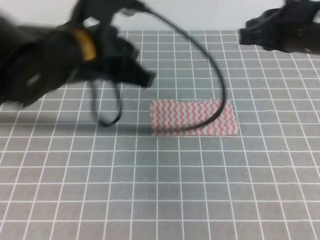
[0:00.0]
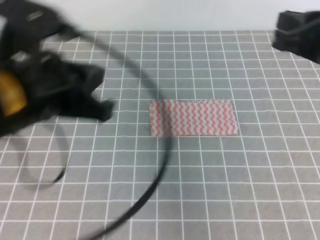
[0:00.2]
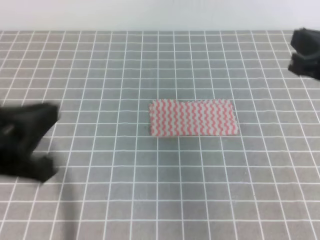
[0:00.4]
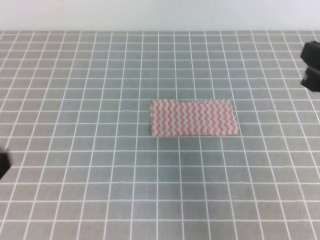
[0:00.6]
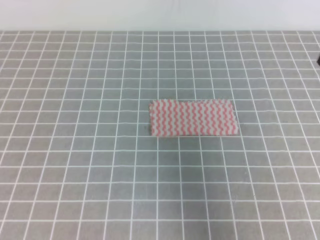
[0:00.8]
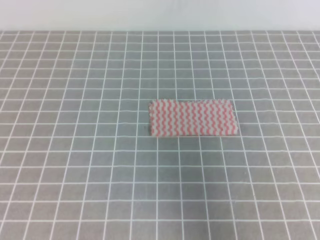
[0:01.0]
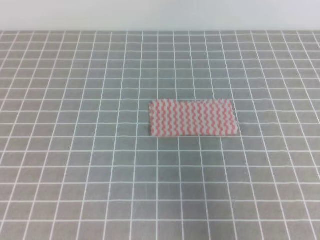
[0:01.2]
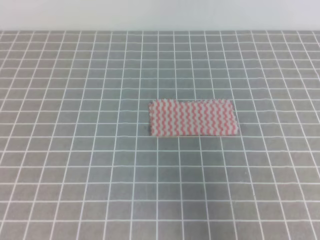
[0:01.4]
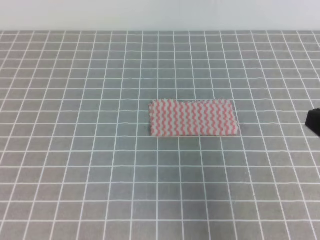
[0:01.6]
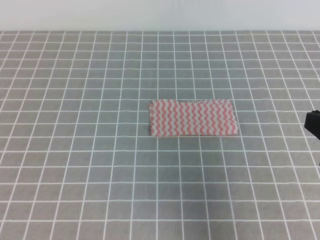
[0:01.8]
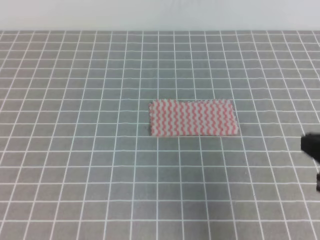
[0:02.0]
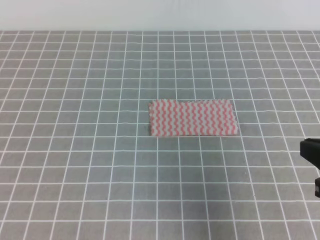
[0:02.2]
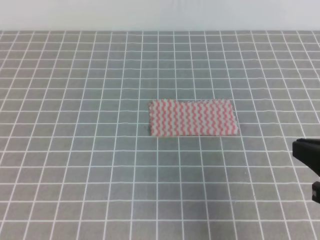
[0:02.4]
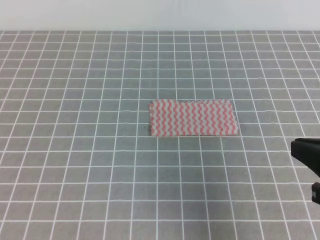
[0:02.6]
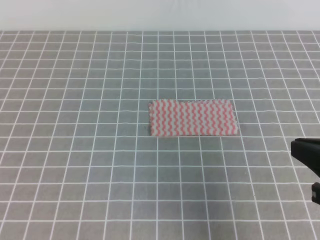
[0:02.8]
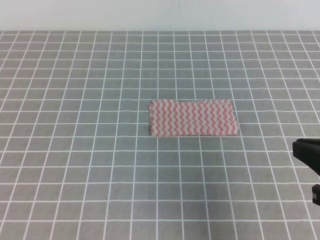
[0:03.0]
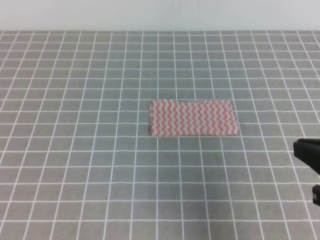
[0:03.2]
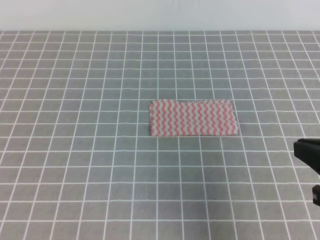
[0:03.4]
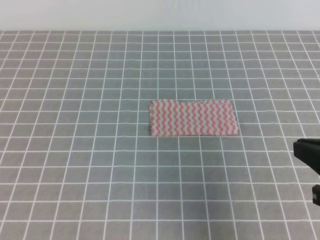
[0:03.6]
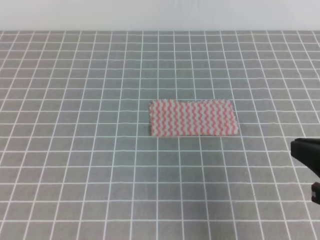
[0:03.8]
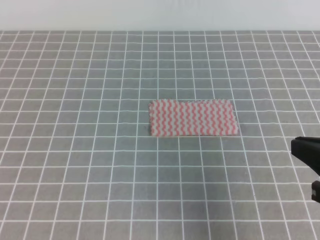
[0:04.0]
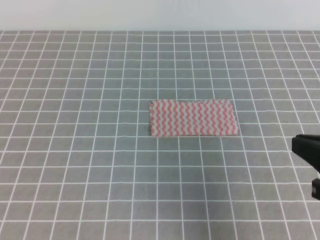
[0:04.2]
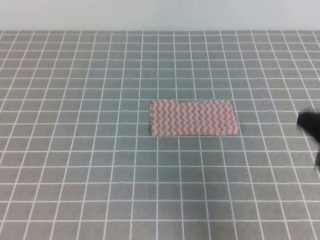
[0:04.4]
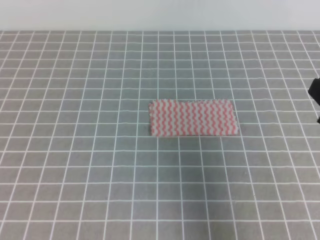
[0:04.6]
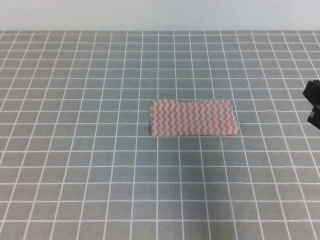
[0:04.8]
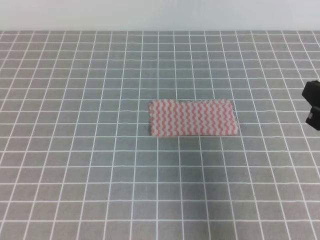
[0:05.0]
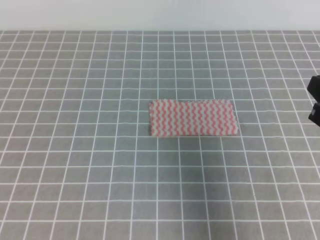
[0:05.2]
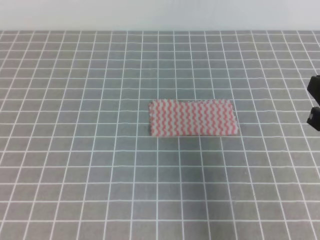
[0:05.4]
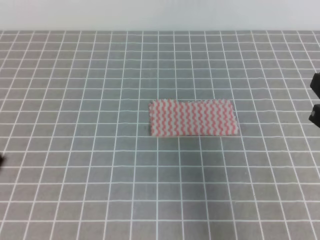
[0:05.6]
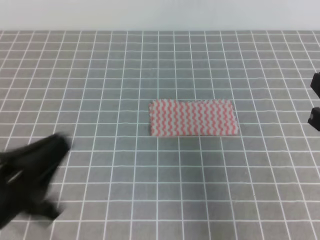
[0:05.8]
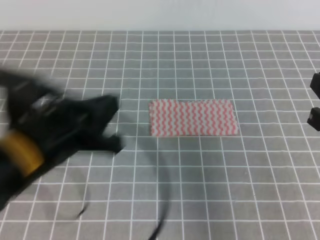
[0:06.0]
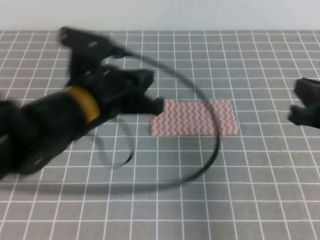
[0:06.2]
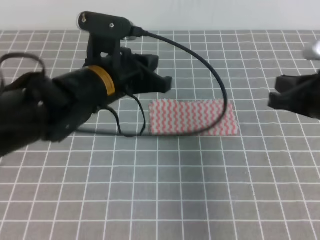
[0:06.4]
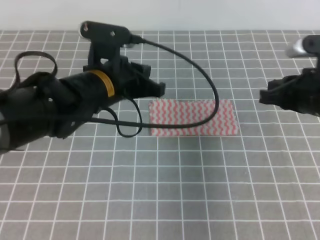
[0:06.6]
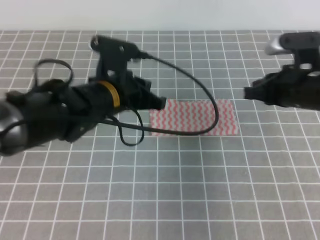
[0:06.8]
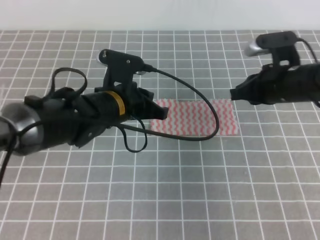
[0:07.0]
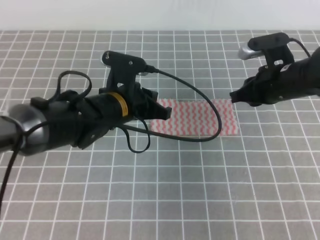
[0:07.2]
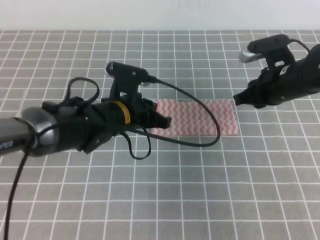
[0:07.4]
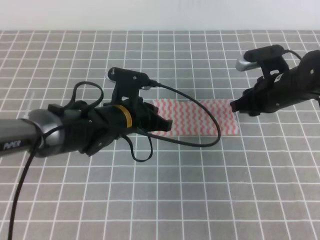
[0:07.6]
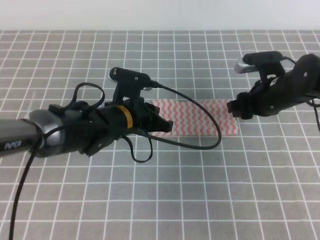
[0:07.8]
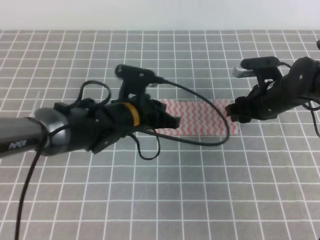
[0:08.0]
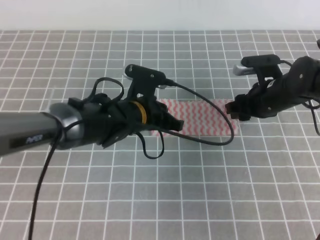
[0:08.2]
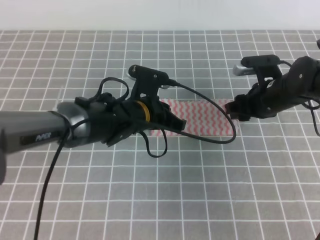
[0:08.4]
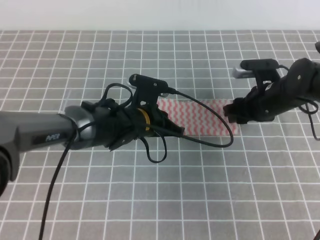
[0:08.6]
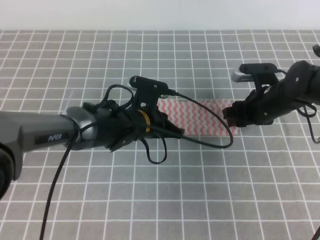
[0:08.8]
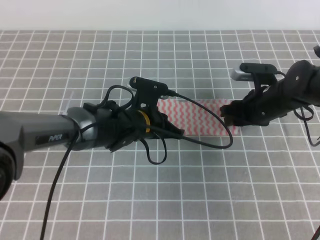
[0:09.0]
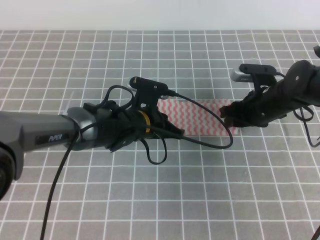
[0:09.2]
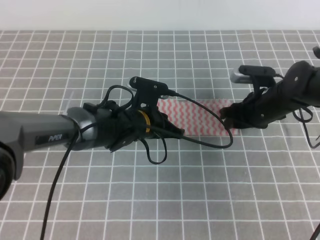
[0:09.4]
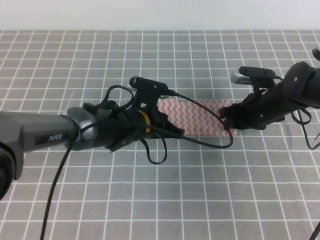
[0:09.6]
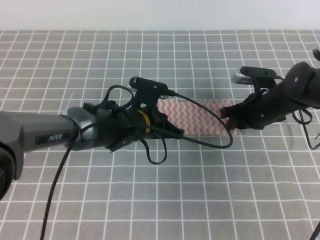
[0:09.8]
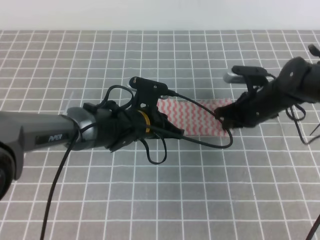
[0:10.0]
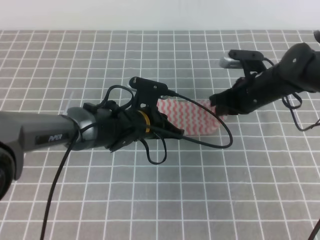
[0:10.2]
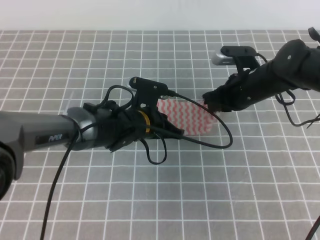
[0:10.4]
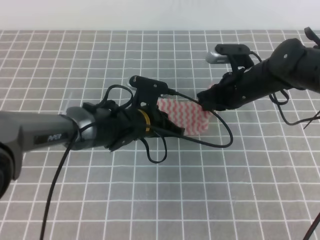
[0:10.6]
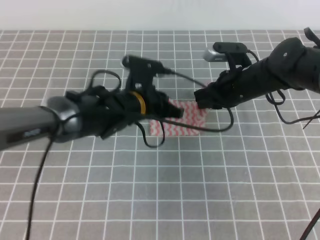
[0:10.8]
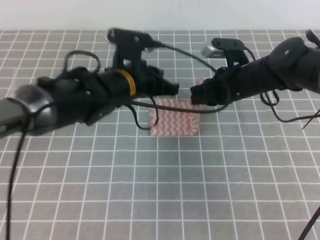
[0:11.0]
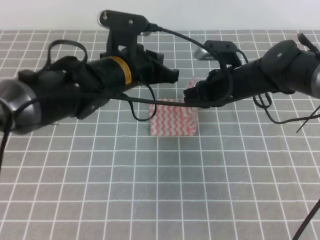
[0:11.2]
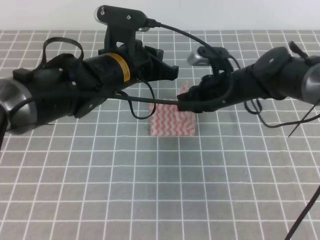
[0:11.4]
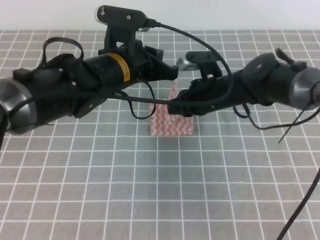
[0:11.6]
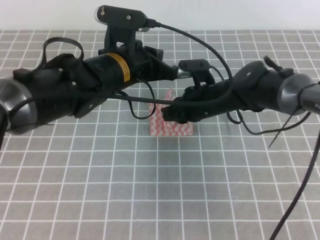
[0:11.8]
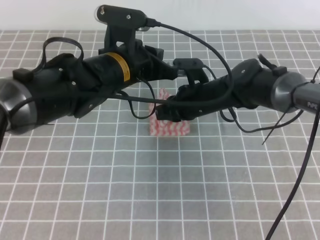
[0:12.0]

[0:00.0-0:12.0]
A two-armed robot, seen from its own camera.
0:00.0 to 0:01.6: The left gripper travels backward and to the left by some 25 cm. The right gripper travels backward by about 15 cm.
0:01.6 to 0:04.4: There are only small adjustments of the grippers.
0:04.4 to 0:06.0: The left gripper shifts about 20 cm forward and to the right.
0:06.0 to 0:07.6: The right gripper heads forward and downward, covering approximately 20 cm, and opens its fingers. Meanwhile the left gripper is displaced forward, downward and to the right by roughly 25 cm.
0:07.6 to 0:09.0: The left gripper shifts by about 5 cm.
0:09.0 to 0:10.4: The right gripper closes its fingers.
0:10.4 to 0:12.0: The left gripper is displaced upward by some 15 cm. Meanwhile the right gripper moves to the left, roughly 10 cm.

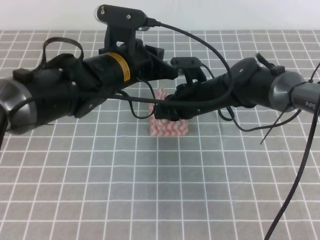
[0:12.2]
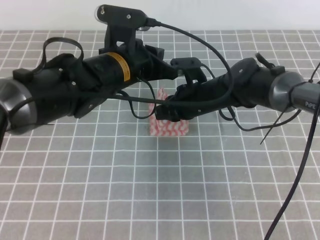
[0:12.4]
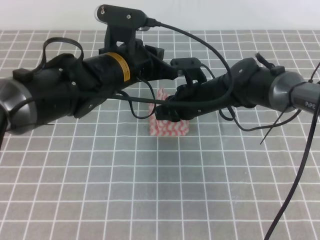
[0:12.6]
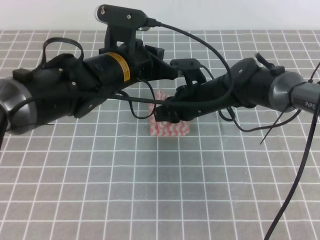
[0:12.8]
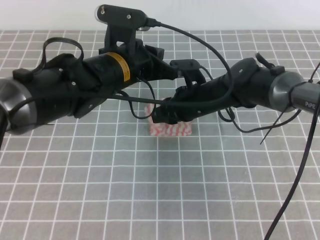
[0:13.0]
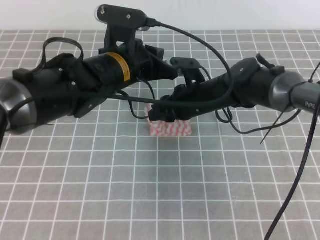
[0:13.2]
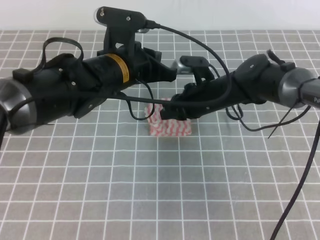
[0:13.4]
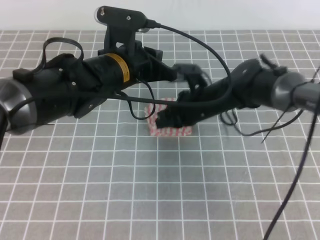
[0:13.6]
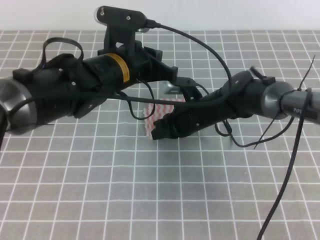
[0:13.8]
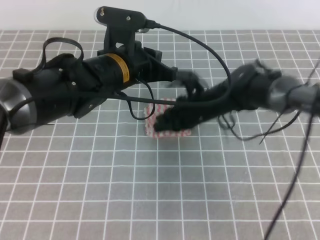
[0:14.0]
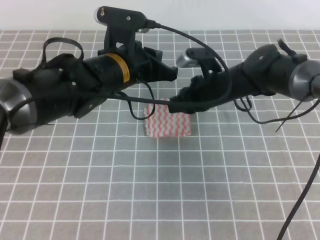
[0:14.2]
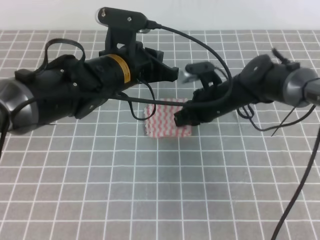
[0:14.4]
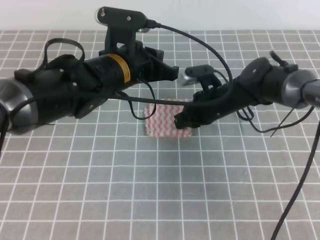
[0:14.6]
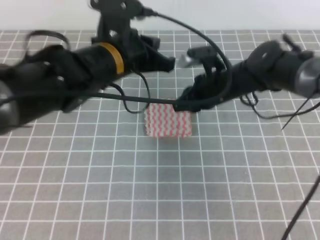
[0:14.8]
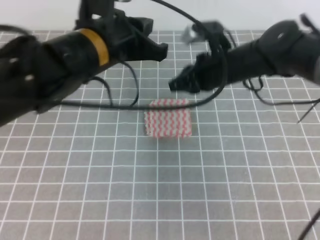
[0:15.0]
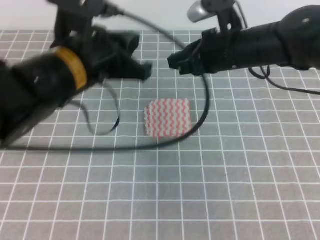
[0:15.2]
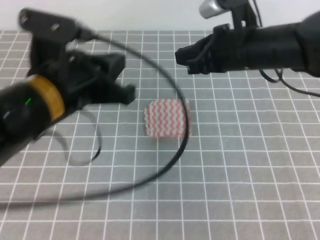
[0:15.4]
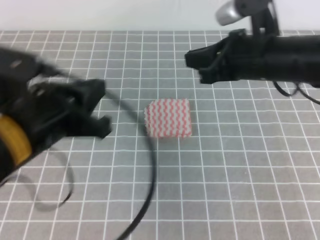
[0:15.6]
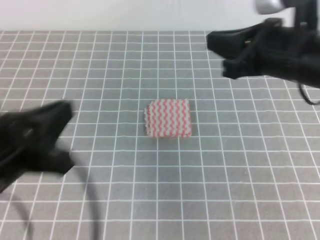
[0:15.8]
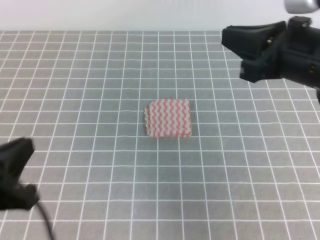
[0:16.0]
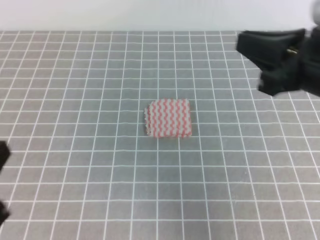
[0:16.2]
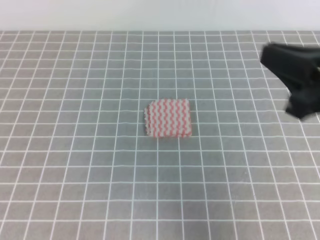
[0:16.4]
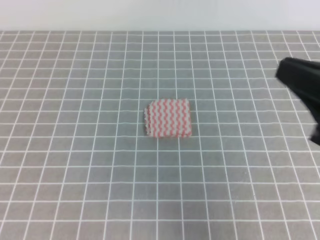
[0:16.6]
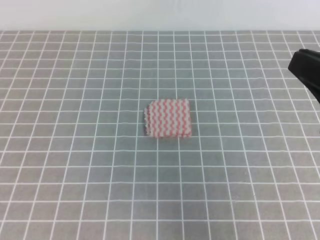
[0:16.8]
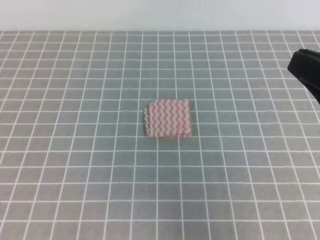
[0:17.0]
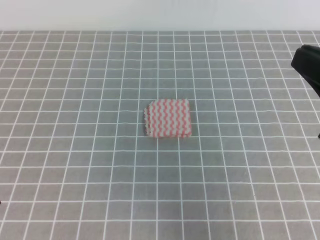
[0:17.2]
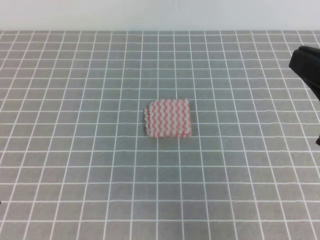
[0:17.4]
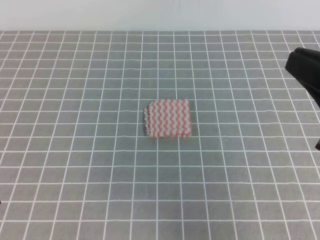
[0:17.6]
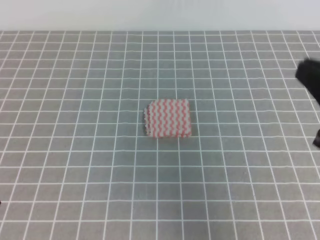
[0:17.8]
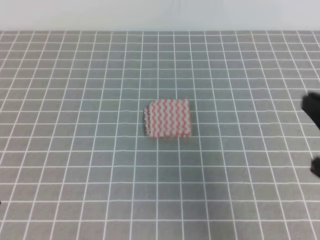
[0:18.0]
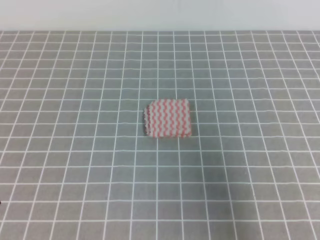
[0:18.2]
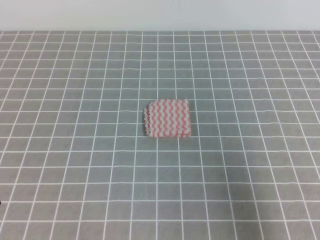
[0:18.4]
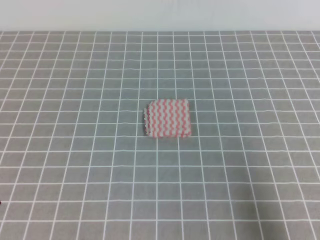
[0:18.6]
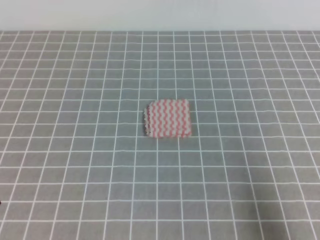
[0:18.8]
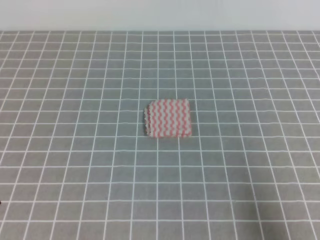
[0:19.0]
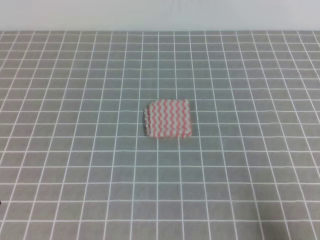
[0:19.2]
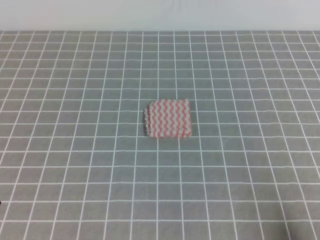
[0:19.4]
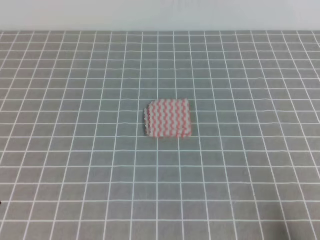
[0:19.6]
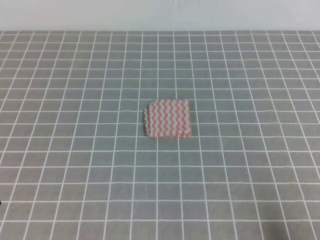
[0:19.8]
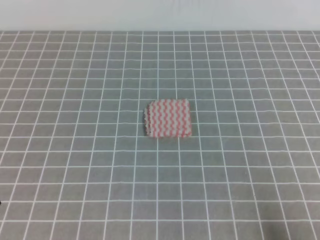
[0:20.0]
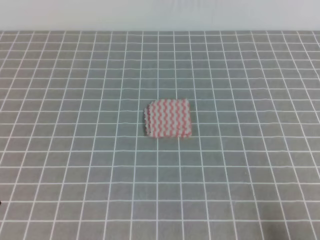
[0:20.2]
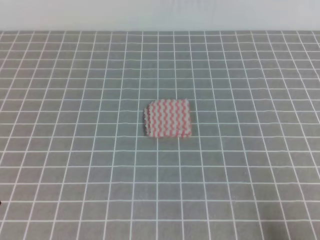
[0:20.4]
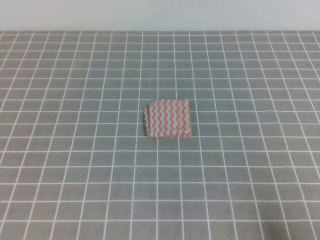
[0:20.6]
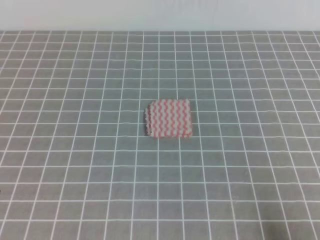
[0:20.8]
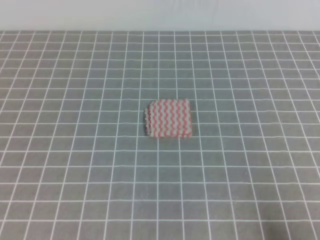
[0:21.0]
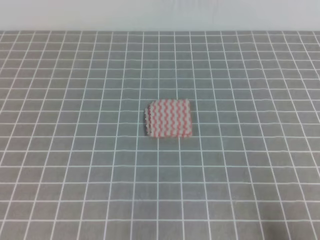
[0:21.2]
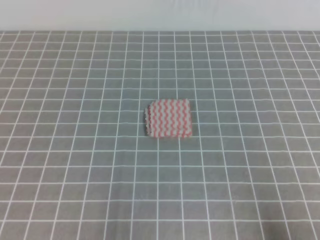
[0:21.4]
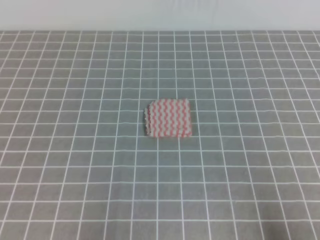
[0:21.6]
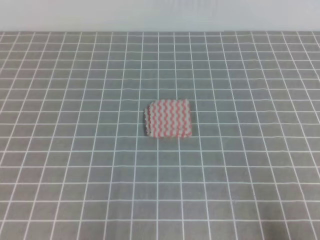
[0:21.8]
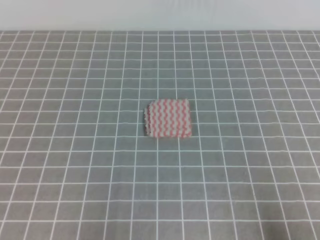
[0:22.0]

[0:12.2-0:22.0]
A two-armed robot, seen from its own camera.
Step, 0:12.2 to 0:22.0: Fold the towel.
0:12.2 to 0:13.6: The right gripper opens, then closes once more.
0:13.6 to 0:15.0: The right gripper shifts some 10 cm upward. Meanwhile the left gripper moves some 5 cm.
0:15.0 to 0:16.4: The left gripper goes about 30 cm backward and to the left; the right gripper goes roughly 25 cm backward, upward and to the right.
0:16.4 to 0:17.8: The grippers make only small movements.
0:17.8 to 0:19.2: The right gripper goes roughly 15 cm downward, backward and to the right.
